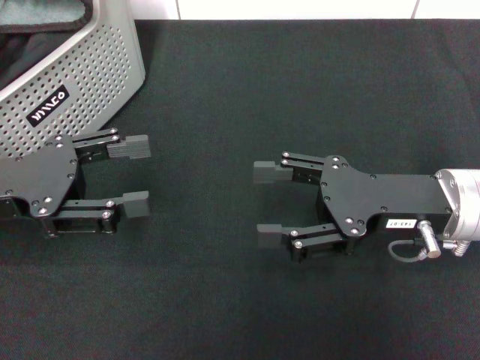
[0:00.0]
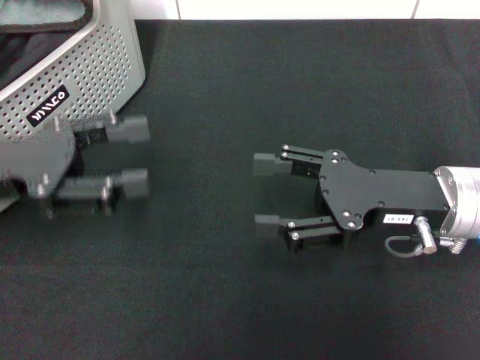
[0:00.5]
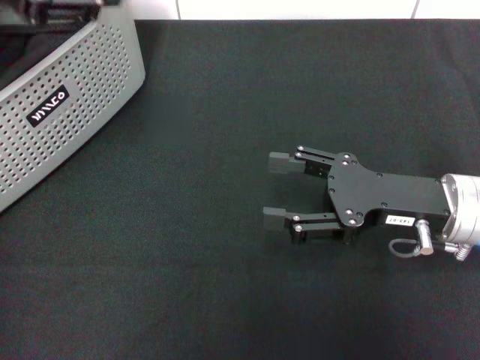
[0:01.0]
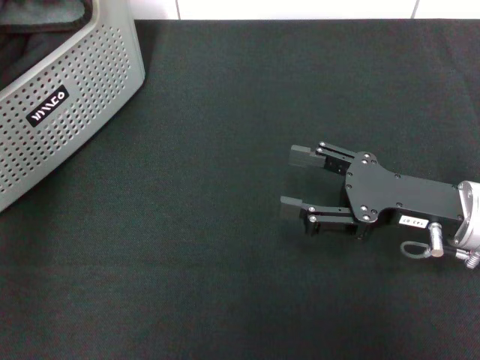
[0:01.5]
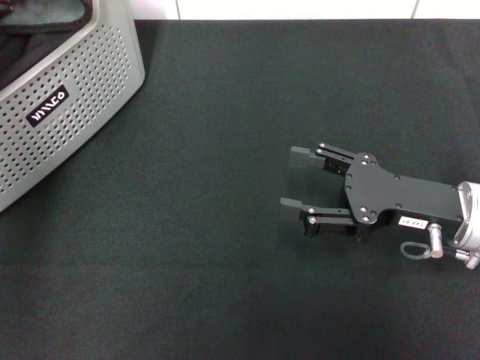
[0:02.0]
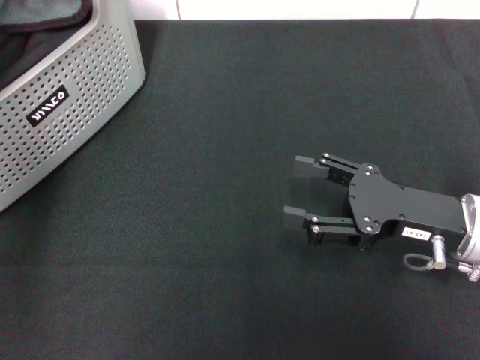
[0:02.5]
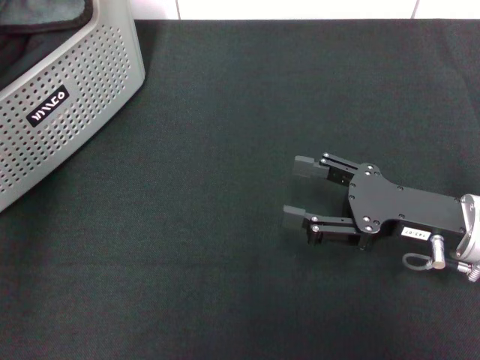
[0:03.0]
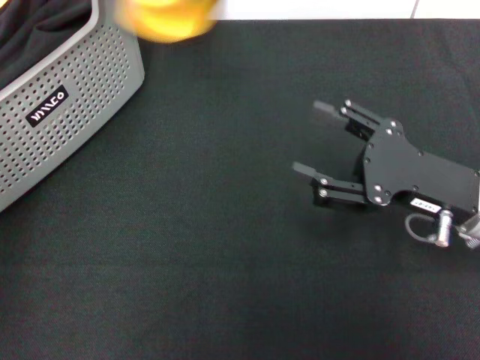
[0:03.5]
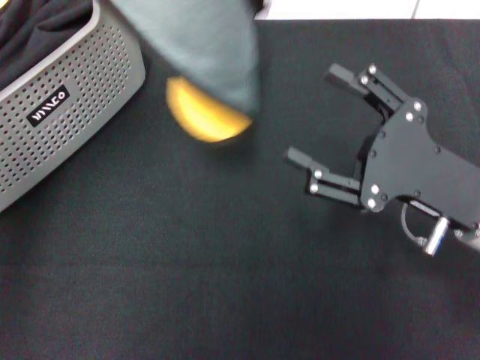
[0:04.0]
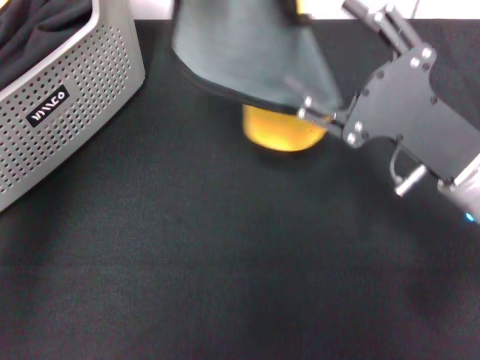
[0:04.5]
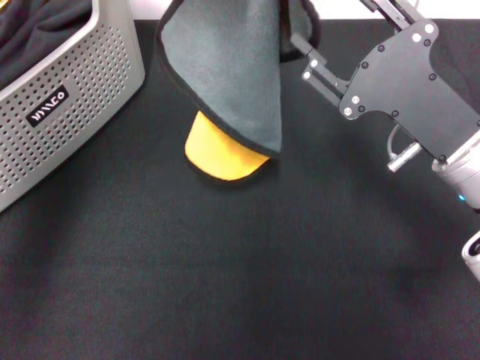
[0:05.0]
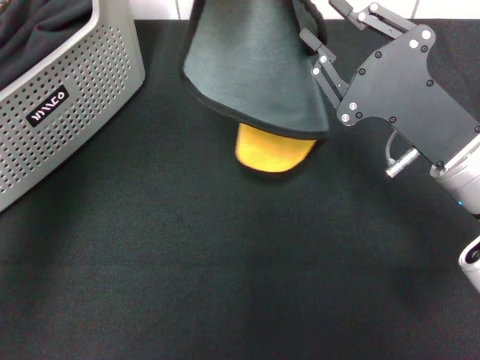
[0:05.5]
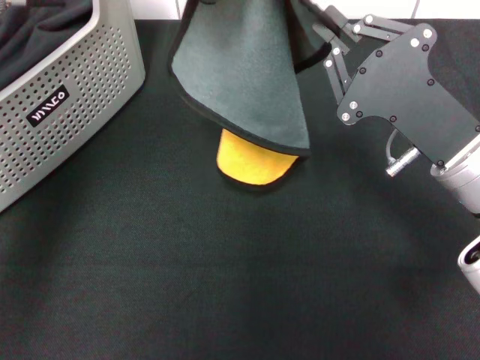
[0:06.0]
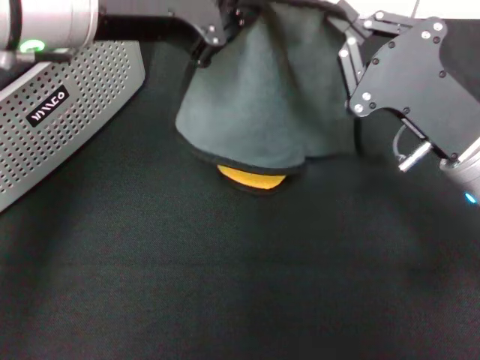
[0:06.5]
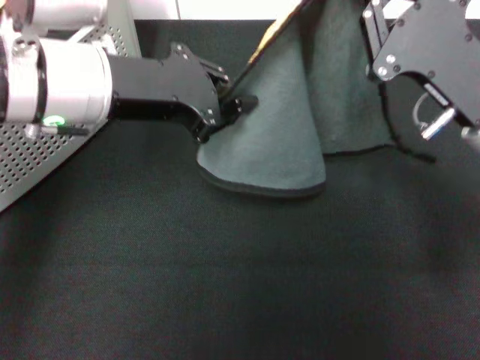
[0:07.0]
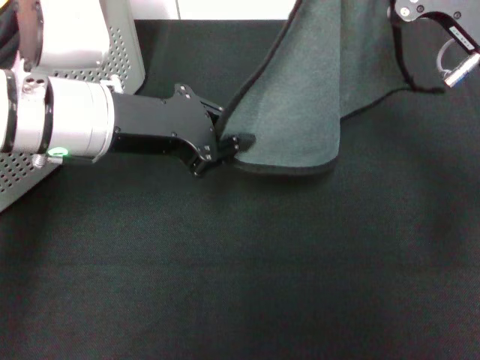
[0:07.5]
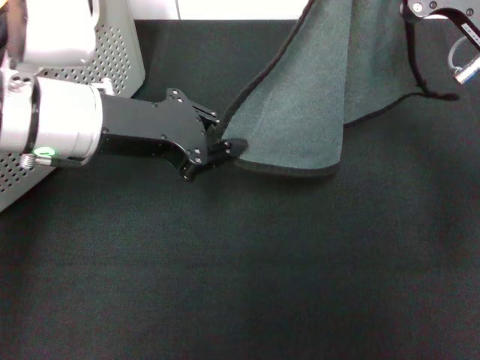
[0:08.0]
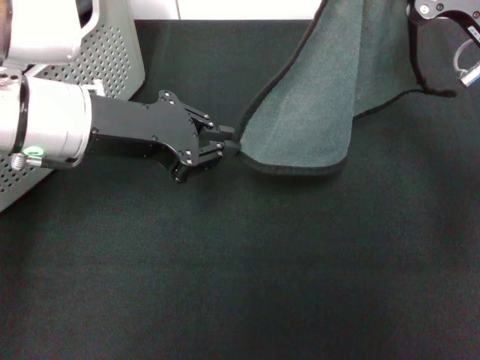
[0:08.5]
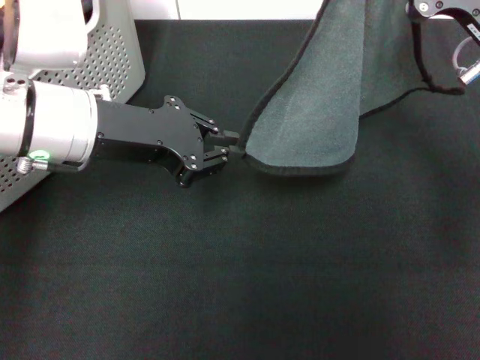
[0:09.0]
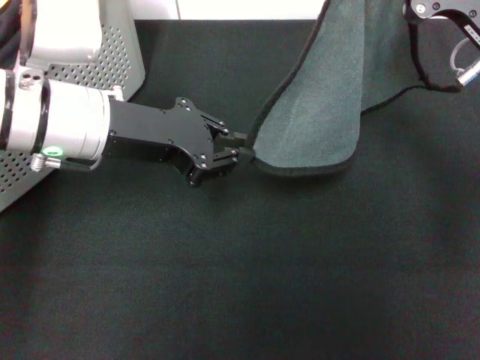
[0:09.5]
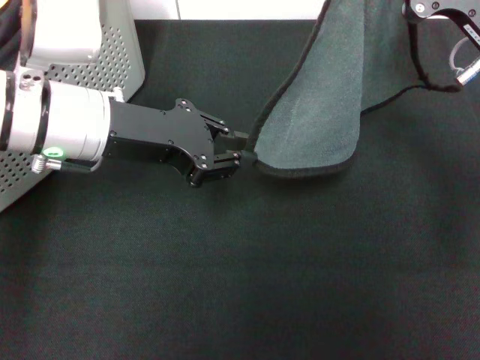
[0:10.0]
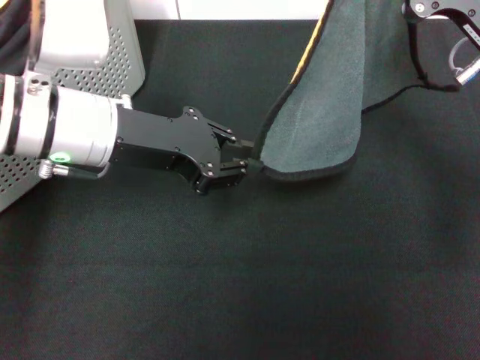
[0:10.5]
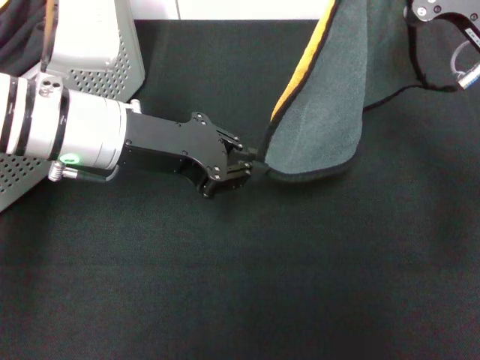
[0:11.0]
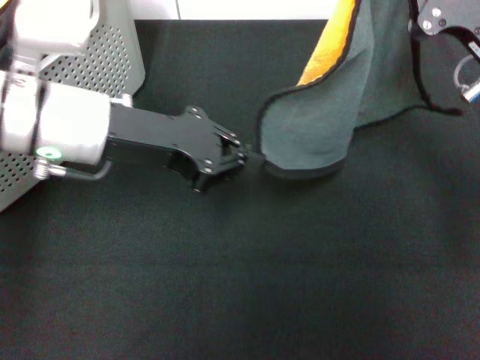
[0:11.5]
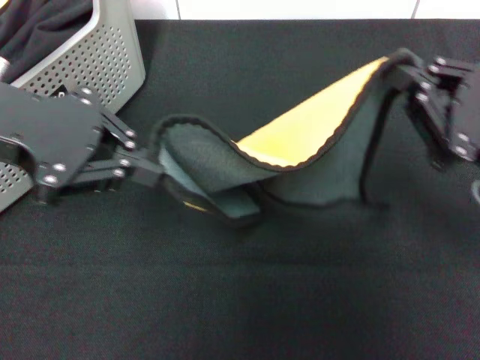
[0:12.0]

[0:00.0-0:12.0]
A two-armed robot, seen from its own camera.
Task of the whole recording: pick up the towel from the storage box and lay it flat on the black tablecloth.
Step, 0:00.0 to 0:02.5: Pick up a towel with the left gripper.
Step, 0:03.5 to 0:06.0: Spread the towel flat with the left gripper.
0:00.0 to 0:02.0: The left gripper heads upward and forward, covering about 20 cm.
0:02.0 to 0:04.0: The left gripper shifts approximately 10 cm to the right and upward, and closes up.
0:04.0 to 0:06.0: The right gripper closes its fingers; the left gripper changes place by some 5 cm.
0:06.0 to 0:08.0: The right gripper is displaced upward by about 5 cm. Meanwhile the left gripper travels downward by roughly 15 cm.
0:08.0 to 0:10.0: The grippers stay close to where they were, moving slightly.
0:10.0 to 0:12.0: The left gripper goes about 10 cm upward and to the left. The right gripper is displaced backward by some 5 cm.

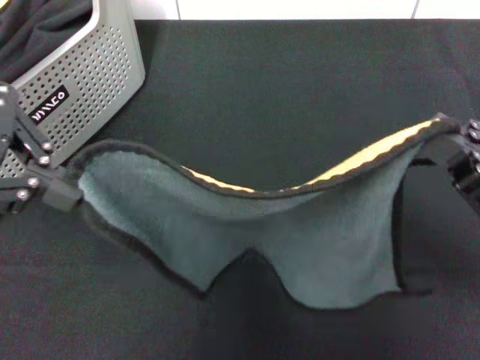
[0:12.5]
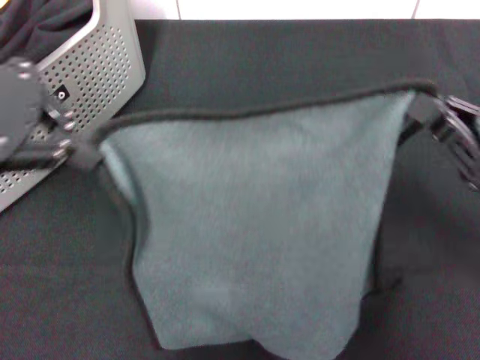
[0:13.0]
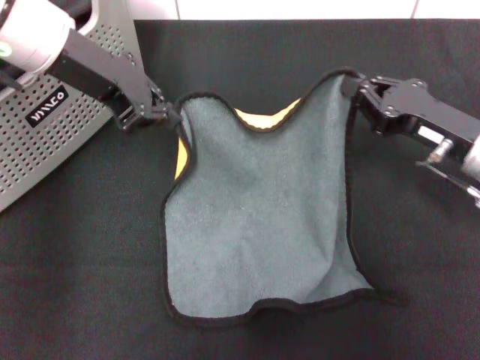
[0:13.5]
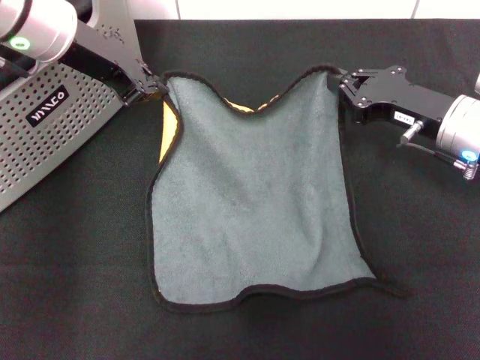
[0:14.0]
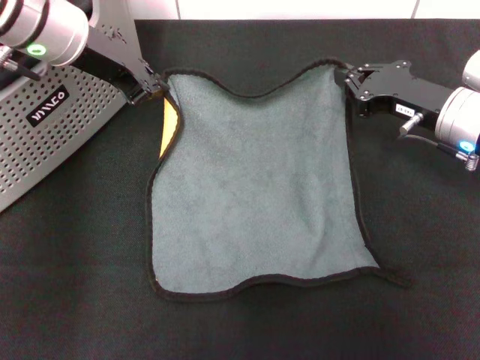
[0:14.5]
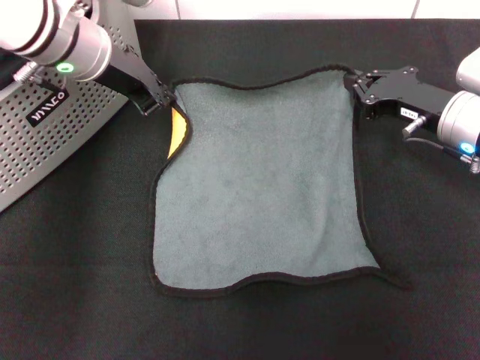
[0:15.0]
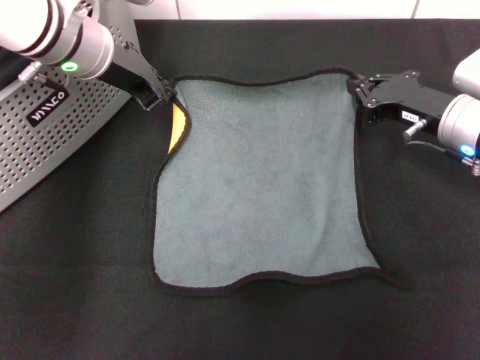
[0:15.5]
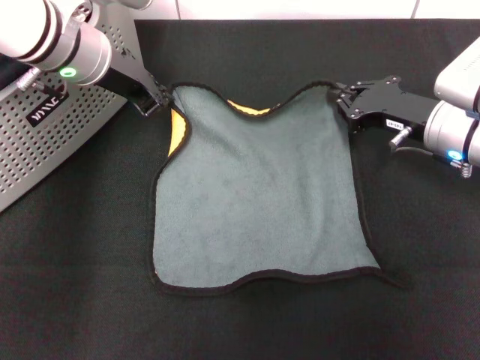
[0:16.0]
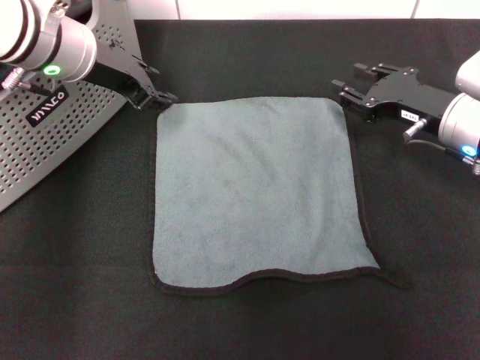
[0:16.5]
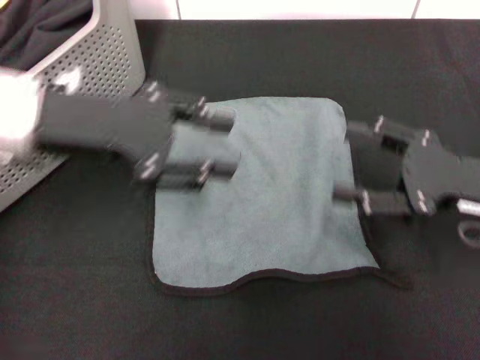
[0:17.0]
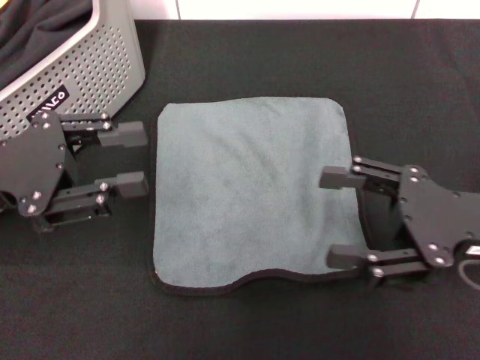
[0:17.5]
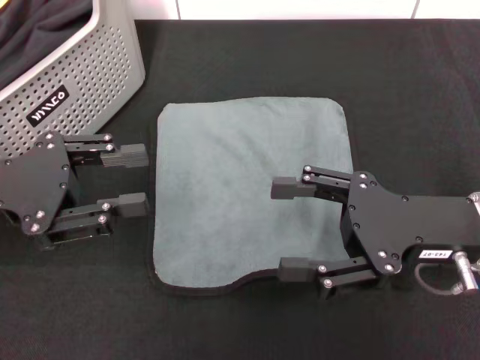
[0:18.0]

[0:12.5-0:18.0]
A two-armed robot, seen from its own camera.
Task of the whole recording: pick up the towel from the storage box and lay it flat on the black tablecloth.
Step, 0:12.5 to 0:16.0: Spread the towel flat with the right gripper.
0:12.5 to 0:14.5: The right gripper heads forward, covering approximately 15 cm. Meanwhile the left gripper heads forward, downward and to the right, covering roughly 20 cm.
0:14.5 to 0:16.0: The grippers make only small movements.
0:16.0 to 0:18.0: The right gripper shifts some 10 cm backward, and opens its fingers; the left gripper is displaced backward and to the left by about 20 cm, and opens up.
